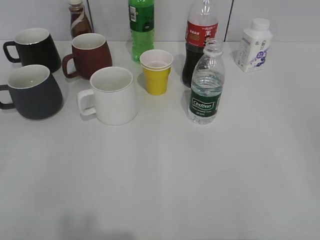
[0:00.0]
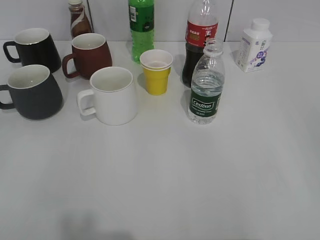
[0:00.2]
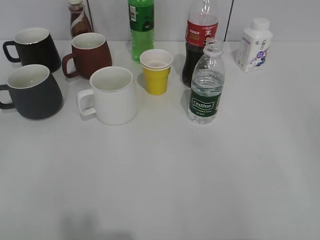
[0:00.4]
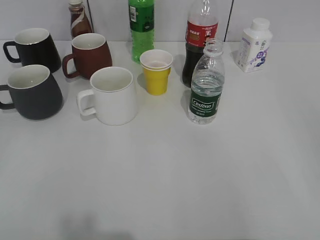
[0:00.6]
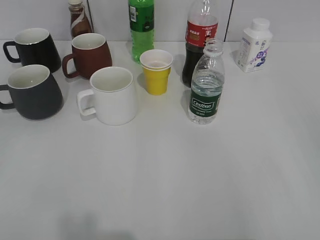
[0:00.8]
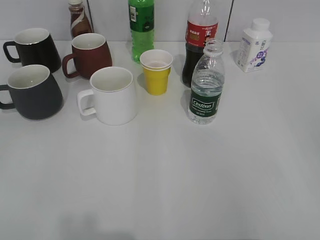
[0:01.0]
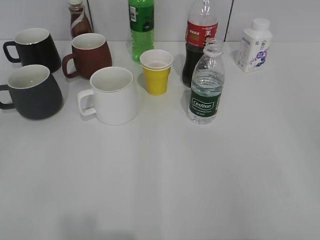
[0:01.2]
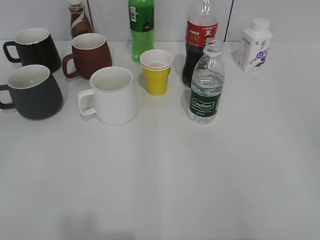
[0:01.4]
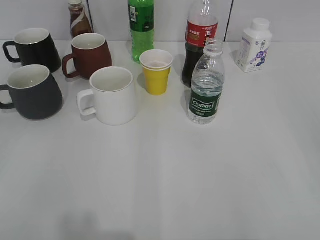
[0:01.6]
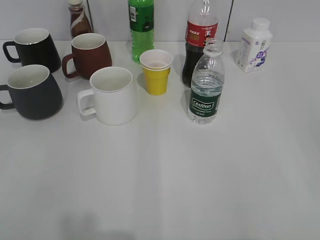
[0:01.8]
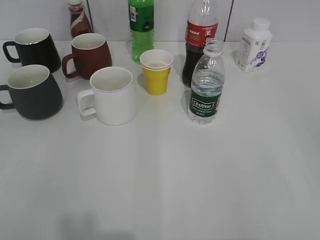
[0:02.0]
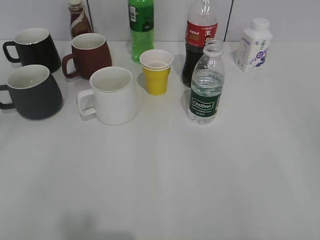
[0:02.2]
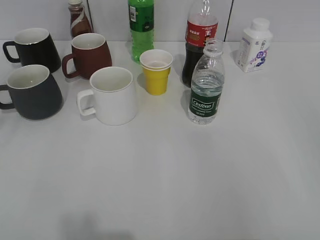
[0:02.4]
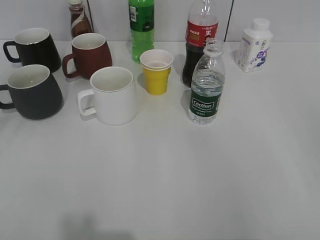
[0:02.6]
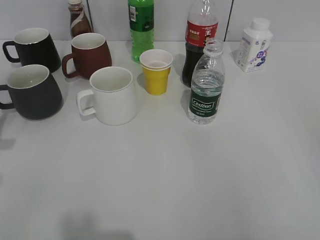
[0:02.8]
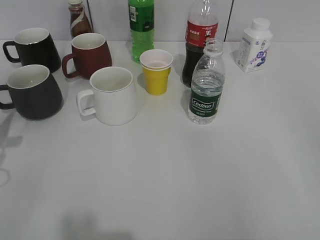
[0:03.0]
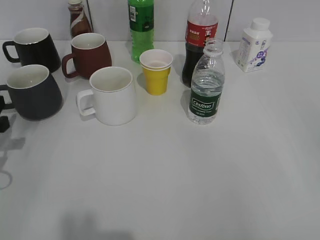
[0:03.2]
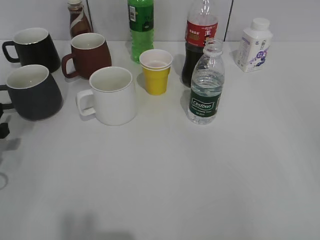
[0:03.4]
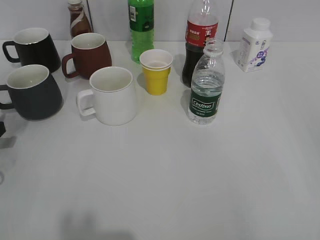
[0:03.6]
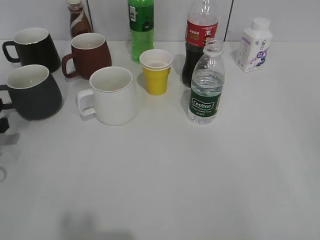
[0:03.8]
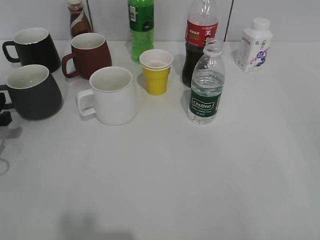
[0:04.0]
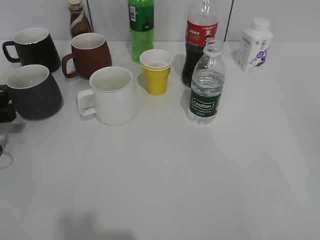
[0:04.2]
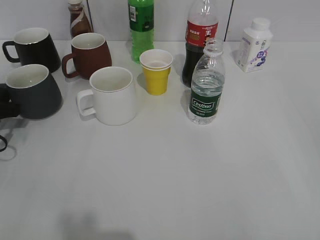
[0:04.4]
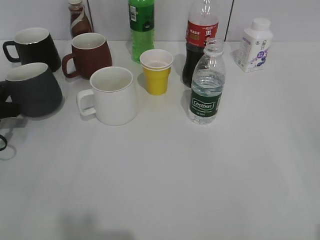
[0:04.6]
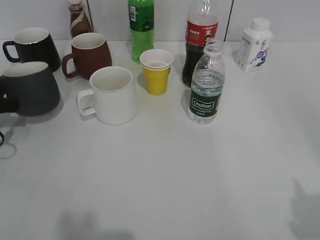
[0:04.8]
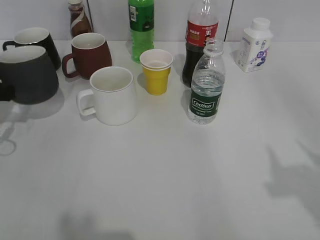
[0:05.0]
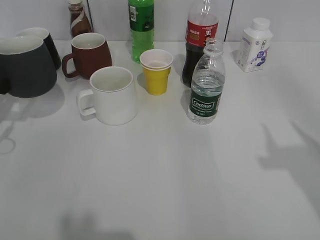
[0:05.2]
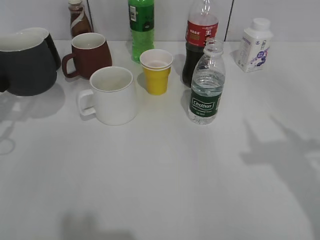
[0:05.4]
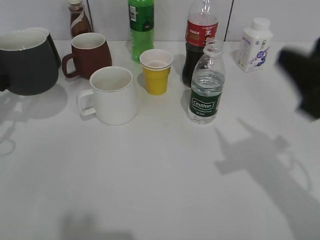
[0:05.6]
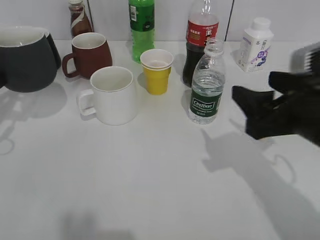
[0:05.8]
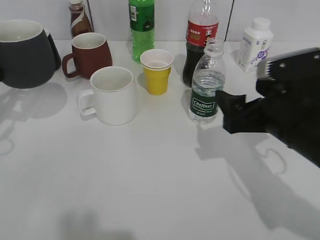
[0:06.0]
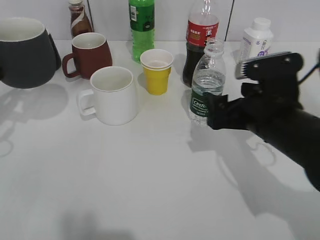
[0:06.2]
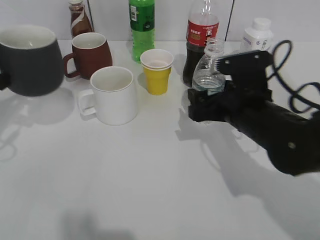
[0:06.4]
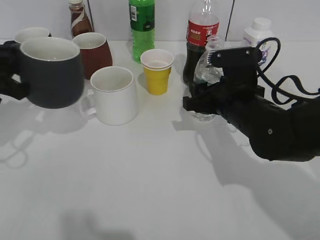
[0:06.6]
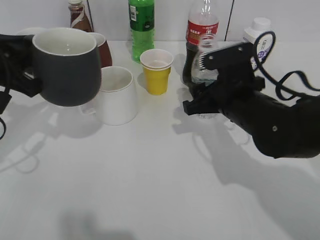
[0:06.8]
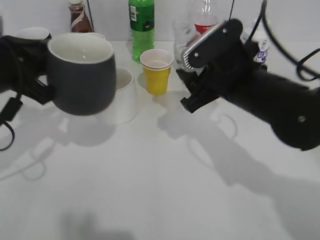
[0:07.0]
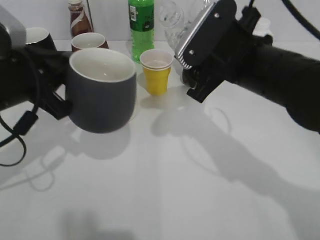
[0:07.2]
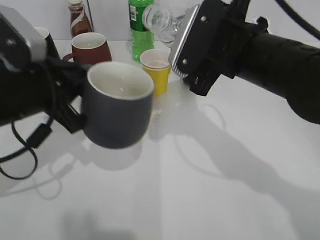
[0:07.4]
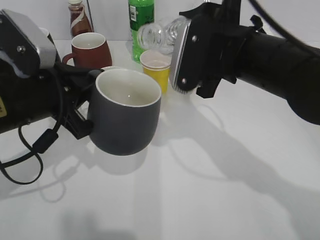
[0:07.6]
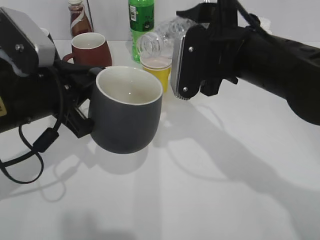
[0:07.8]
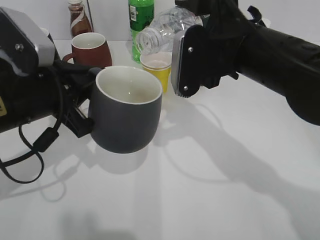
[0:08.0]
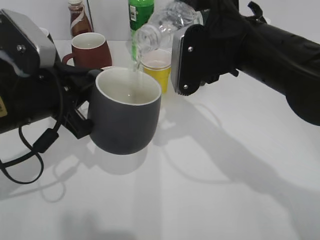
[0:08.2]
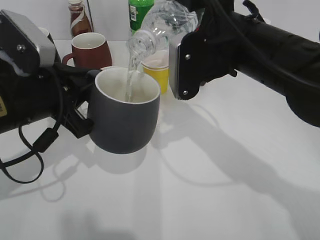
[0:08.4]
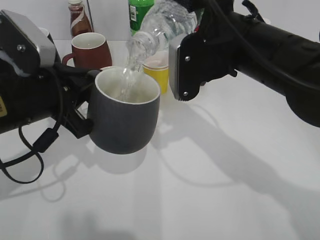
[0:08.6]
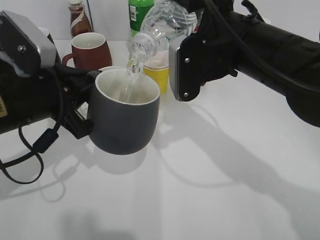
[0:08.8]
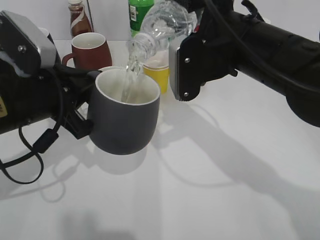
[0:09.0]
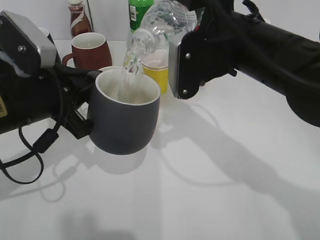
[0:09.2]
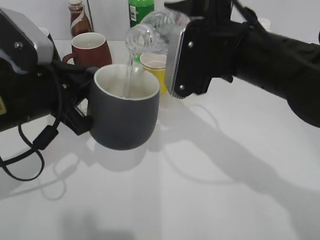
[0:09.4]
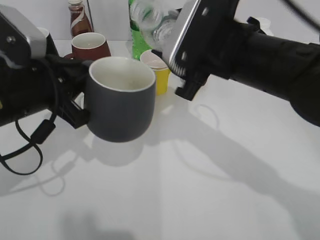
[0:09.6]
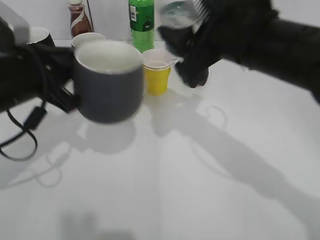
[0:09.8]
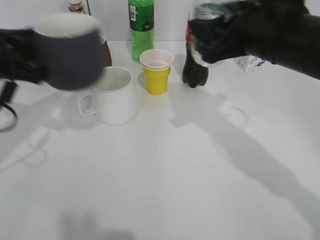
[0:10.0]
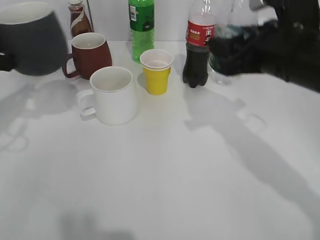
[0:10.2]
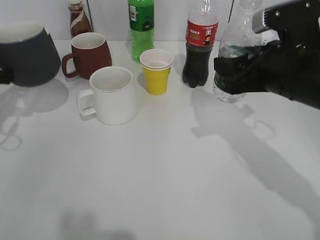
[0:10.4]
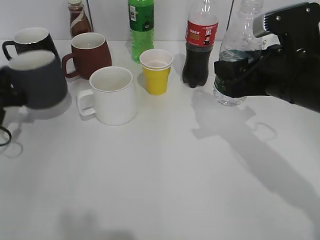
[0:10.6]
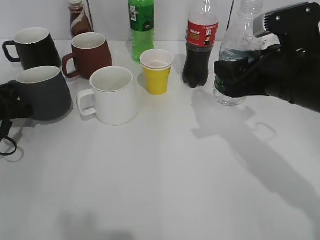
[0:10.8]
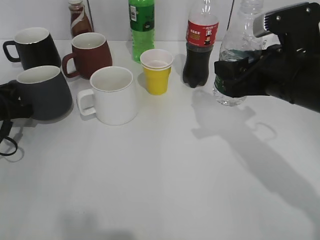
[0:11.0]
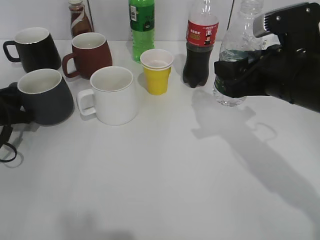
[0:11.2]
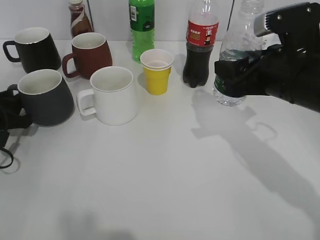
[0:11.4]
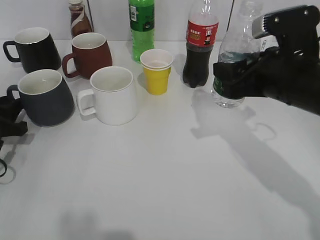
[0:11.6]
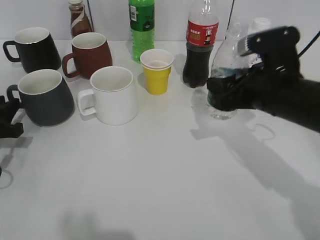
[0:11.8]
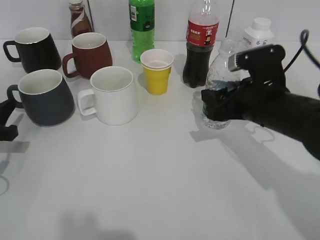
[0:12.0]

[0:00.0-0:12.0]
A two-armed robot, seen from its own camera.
Step, 4.8 to 5.4 s: Lift the black cup with left gripper.
Step, 5.6 to 6.4 s: Grasp the bottle with water with right gripper.
Step, 6.6 to 9.6 s: Pour the water from bottle to cup with right gripper.
Step, 9.8 to 11.4 s: Place the black cup on the table with left gripper.
1.6 to 3.0 s: The left gripper shifts approximately 25 cm forward and downward.
3.0 to 4.4 s: The left gripper travels forward and downward by approximately 10 cm.
4.4 to 6.0 s: The right gripper goes roughly 25 cm forward, to the left and downward, and opens its fingers. The left gripper is displaced upward by about 10 cm, and closes.
6.0 to 7.6 s: The left gripper heads to the right and backward, covering approximately 15 cm; the right gripper is displaced to the left, forward and upward by approximately 10 cm, and closes.
9.0 to 10.4 s: The left gripper goes approximately 15 cm to the left and forward. Meanwhile the right gripper moves to the right, about 10 cm.
10.4 to 12.0 s: The right gripper travels downward by about 5 cm, while the left gripper is displaced downward and backward by about 10 cm, and opens its fingers.

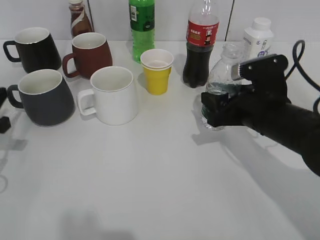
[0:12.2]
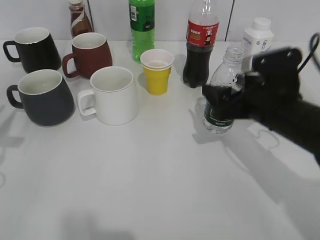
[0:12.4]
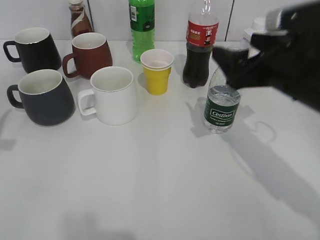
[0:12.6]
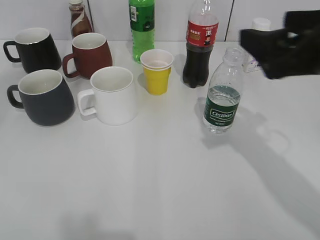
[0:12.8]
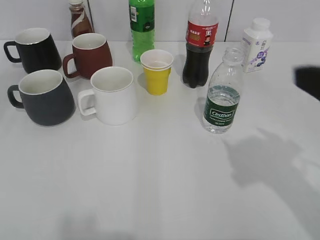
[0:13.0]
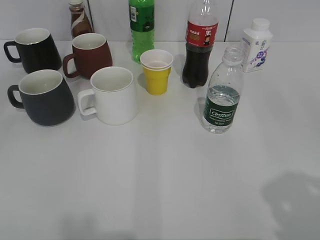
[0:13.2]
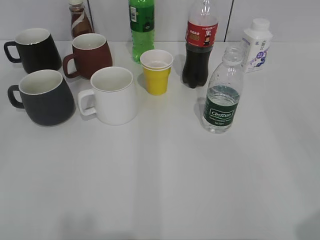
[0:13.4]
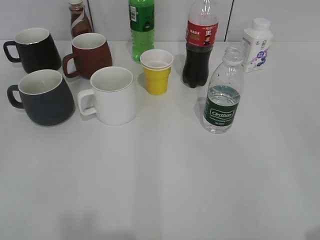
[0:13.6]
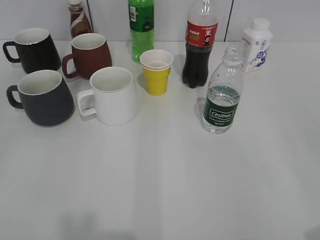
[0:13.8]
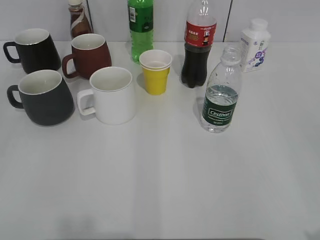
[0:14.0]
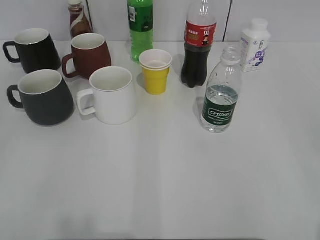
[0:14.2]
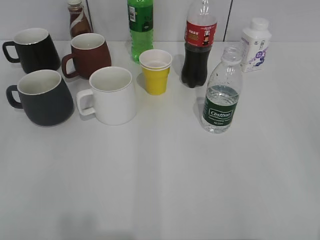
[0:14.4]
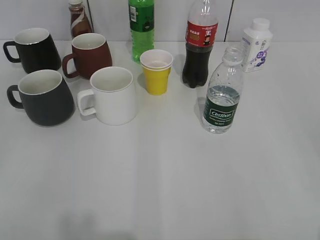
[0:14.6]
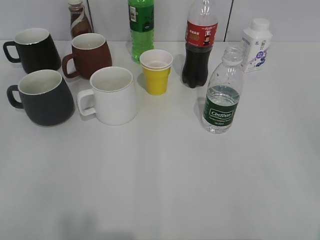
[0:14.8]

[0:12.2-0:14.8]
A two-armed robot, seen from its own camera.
12.2 to 13.4 s: The left gripper travels backward and upward by about 30 cm, and opens up. Meanwhile the right gripper travels backward, upward and to the right by roughly 30 cm, and opens up.

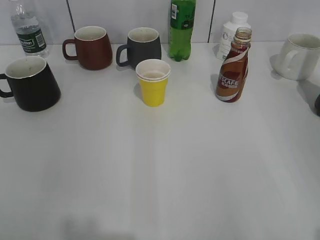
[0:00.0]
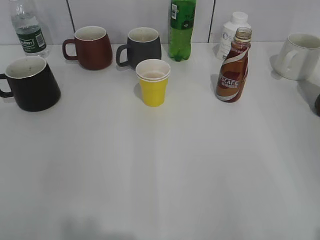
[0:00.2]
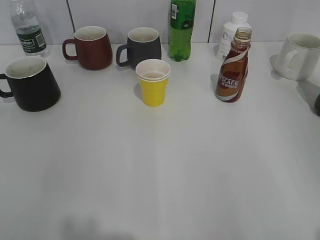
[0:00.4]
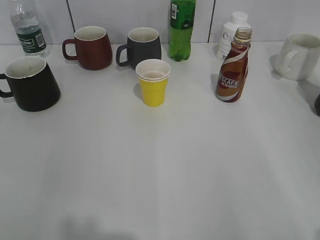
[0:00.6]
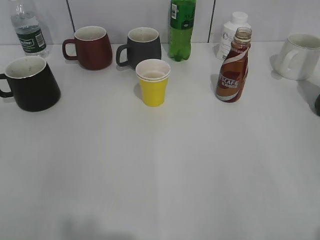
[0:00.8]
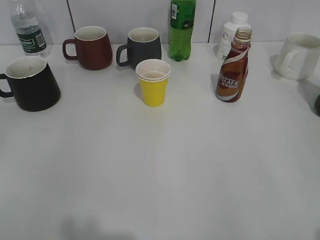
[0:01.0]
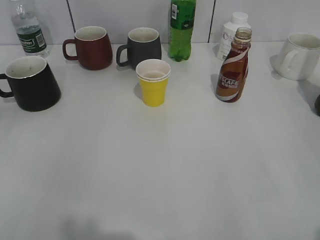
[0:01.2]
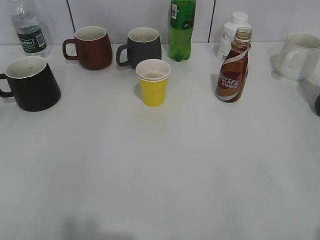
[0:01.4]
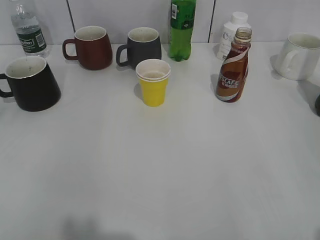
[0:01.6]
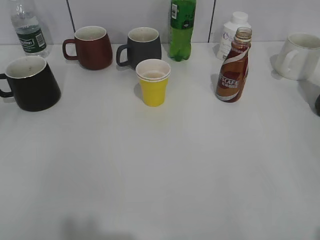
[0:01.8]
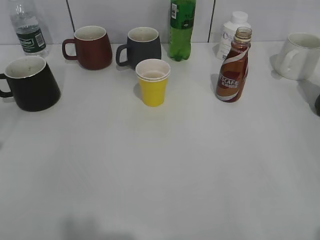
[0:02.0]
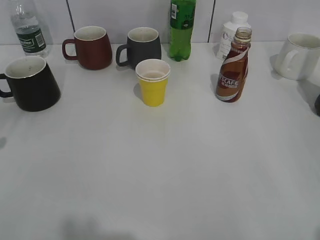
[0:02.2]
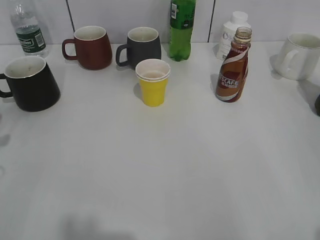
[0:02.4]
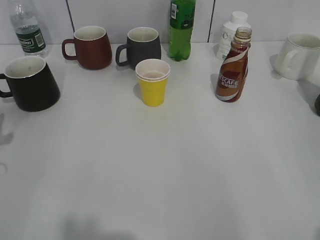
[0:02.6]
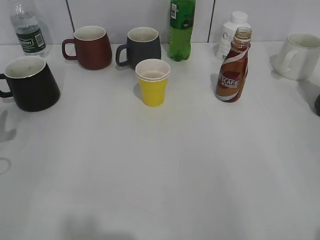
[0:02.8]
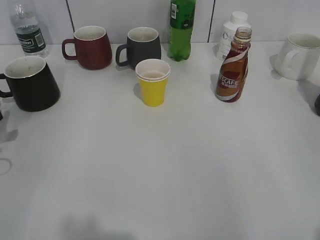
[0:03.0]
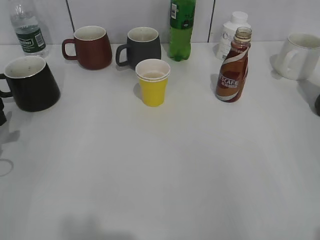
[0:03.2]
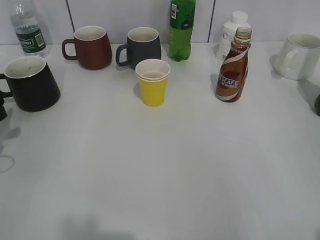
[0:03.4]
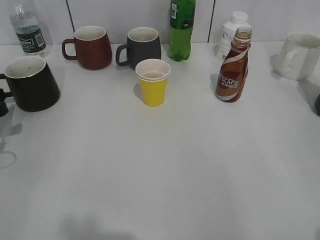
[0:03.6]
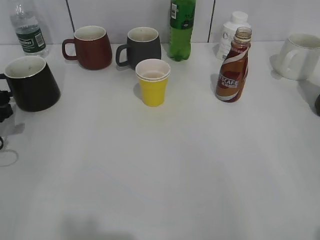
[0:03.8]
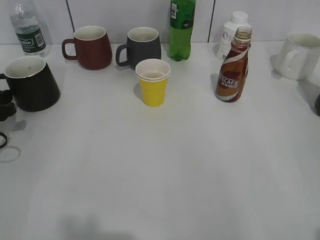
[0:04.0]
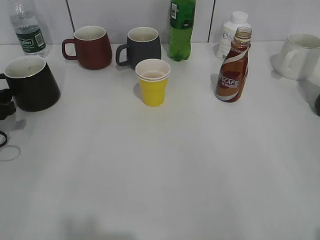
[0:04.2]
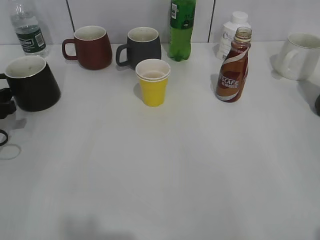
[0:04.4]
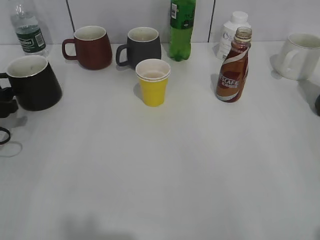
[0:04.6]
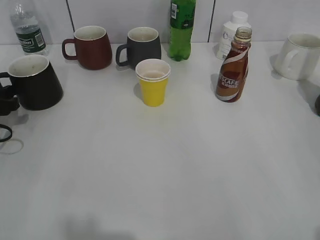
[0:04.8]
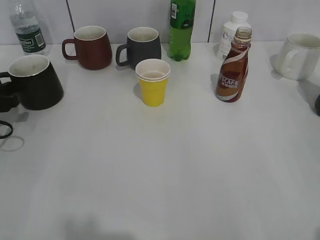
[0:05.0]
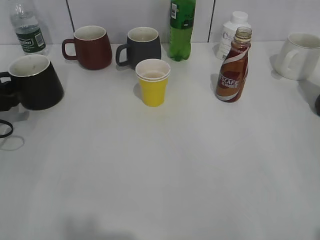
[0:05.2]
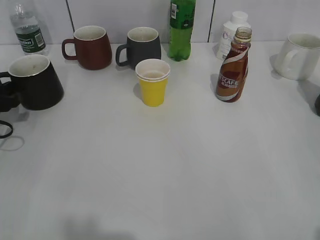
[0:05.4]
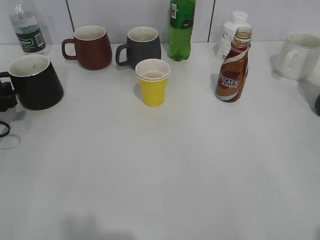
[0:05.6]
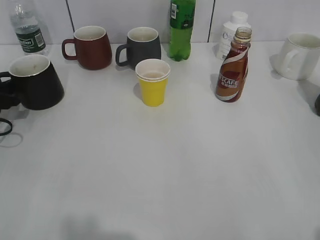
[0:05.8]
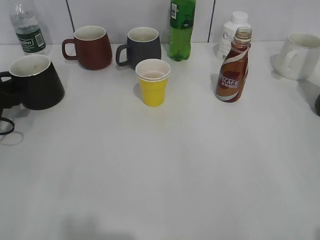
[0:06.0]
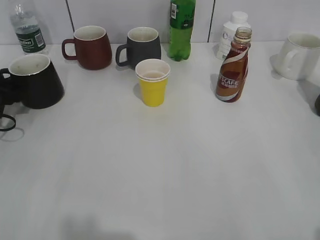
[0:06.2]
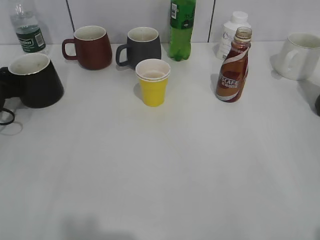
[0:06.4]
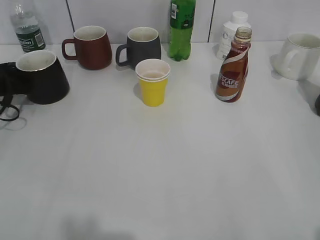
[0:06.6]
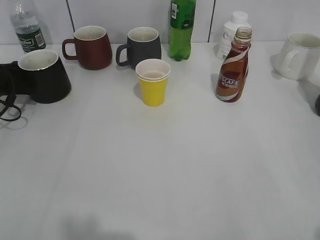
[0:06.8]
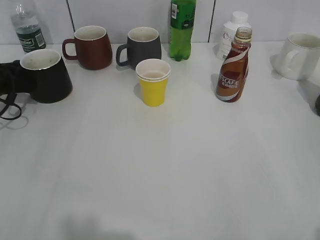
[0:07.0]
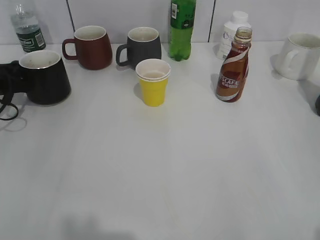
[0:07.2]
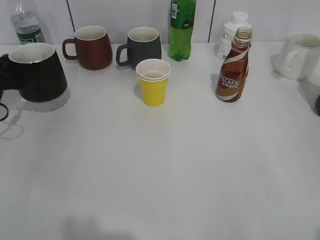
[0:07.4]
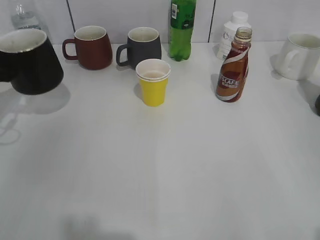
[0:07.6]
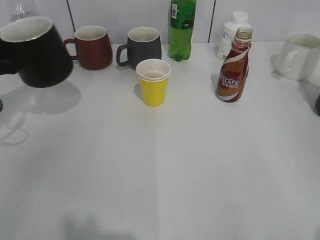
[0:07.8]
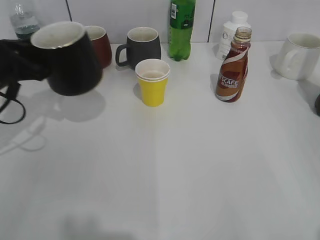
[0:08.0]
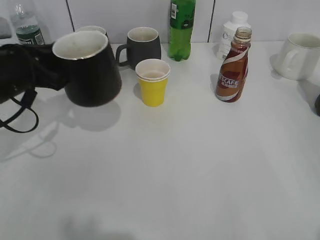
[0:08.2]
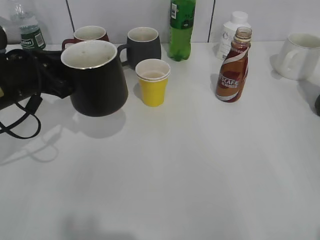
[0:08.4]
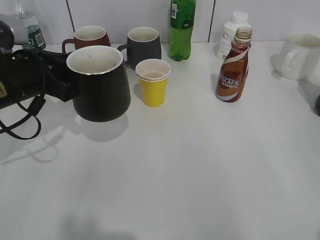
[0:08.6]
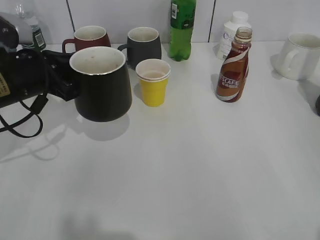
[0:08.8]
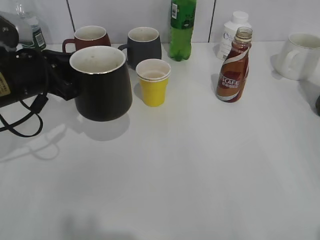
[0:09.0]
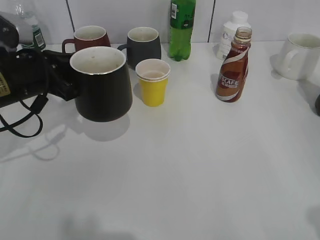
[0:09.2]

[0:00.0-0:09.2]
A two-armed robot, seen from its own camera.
Step, 0.8 to 7.0 s: Grasp the black cup with left gripper.
1.6 to 3.0 s: The left gripper travels downward and forward by some 25 cm.
3.0 to 4.6 s: The left gripper shifts by approximately 5 cm.
4.6 to 6.2 s: The grippers make only small movements.
6.2 to 7.6 s: The left gripper moves upward, approximately 5 cm, and closes.
7.6 to 9.2 s: The left gripper shifts approximately 10 cm to the right.
